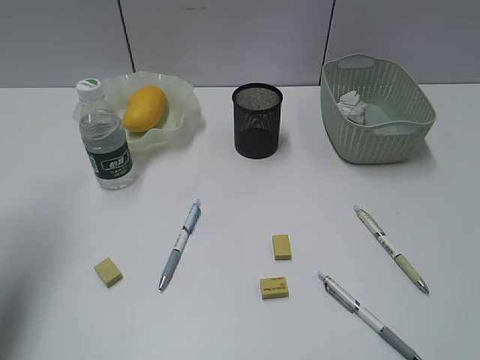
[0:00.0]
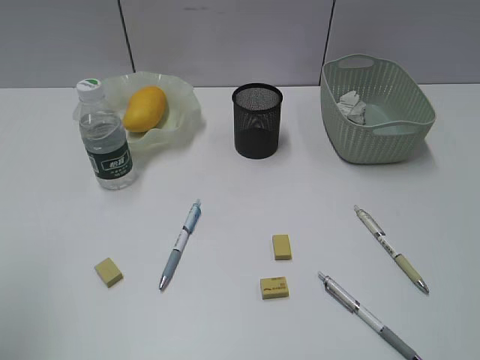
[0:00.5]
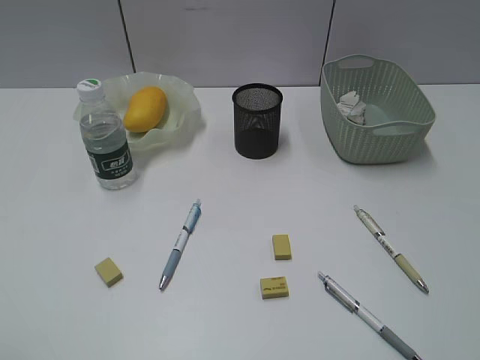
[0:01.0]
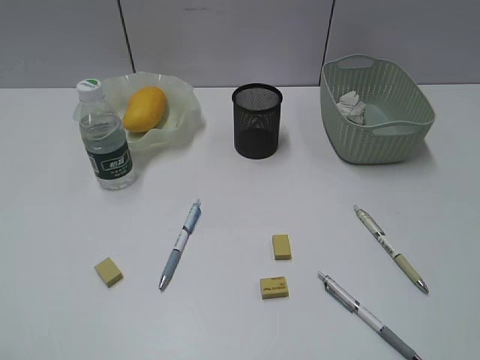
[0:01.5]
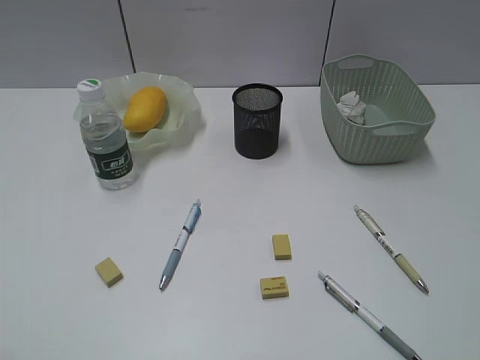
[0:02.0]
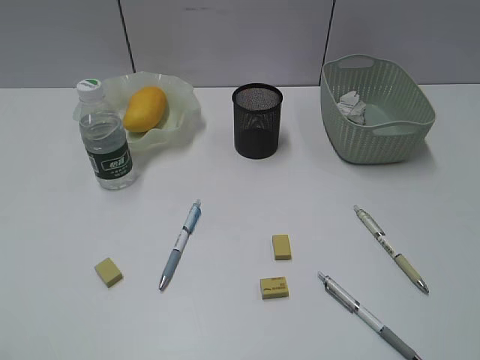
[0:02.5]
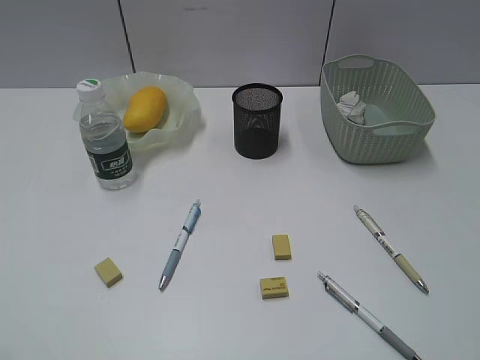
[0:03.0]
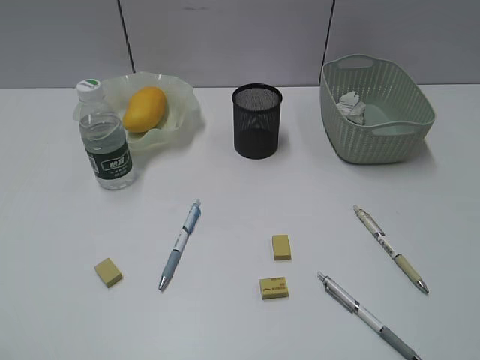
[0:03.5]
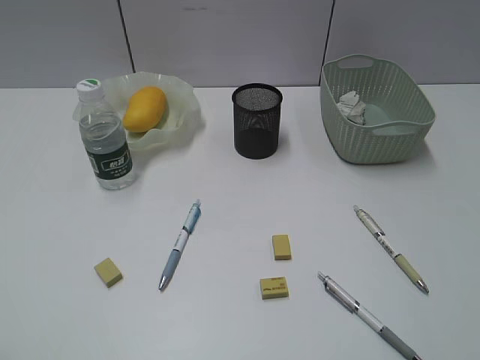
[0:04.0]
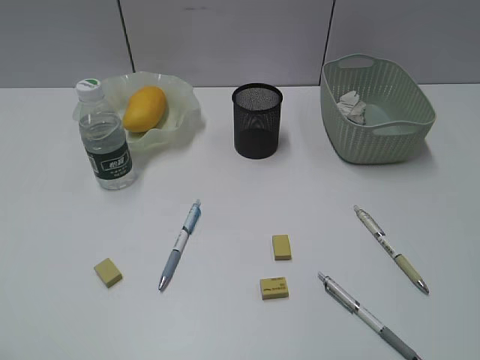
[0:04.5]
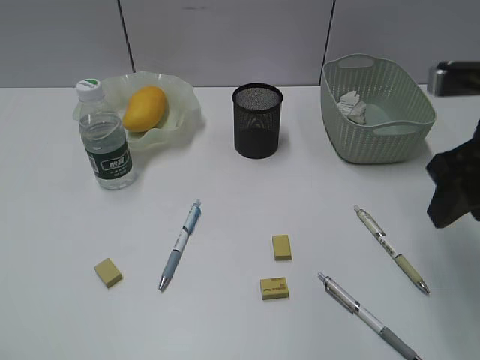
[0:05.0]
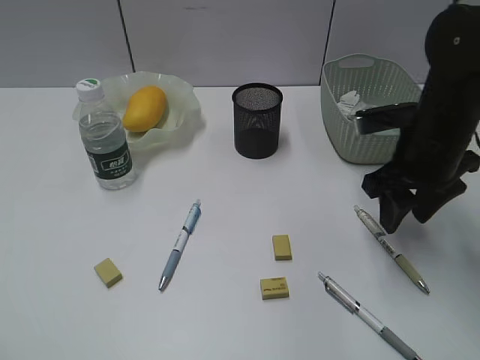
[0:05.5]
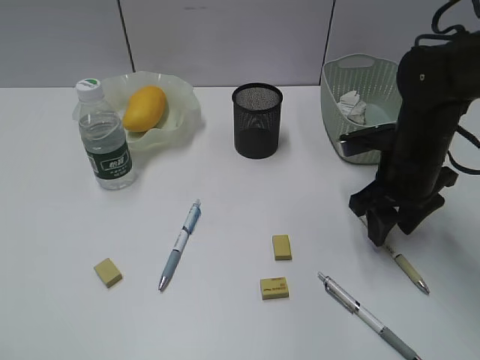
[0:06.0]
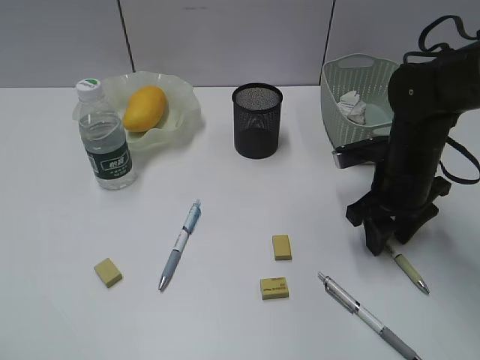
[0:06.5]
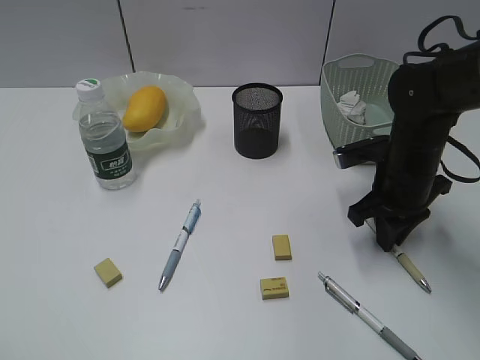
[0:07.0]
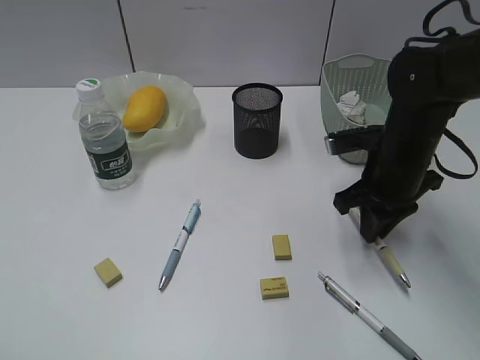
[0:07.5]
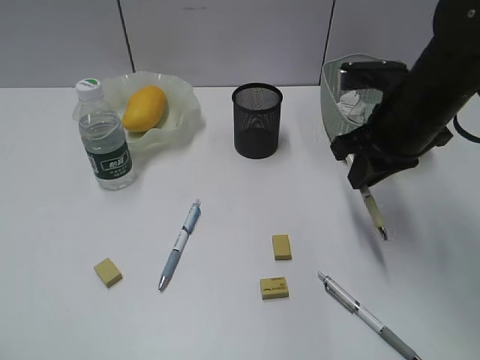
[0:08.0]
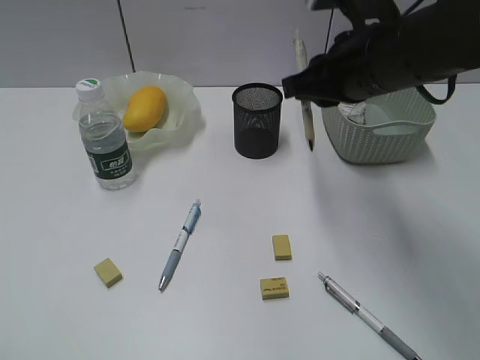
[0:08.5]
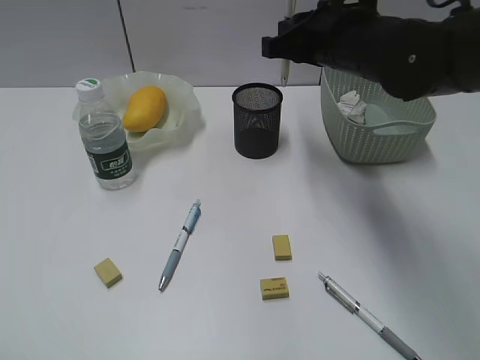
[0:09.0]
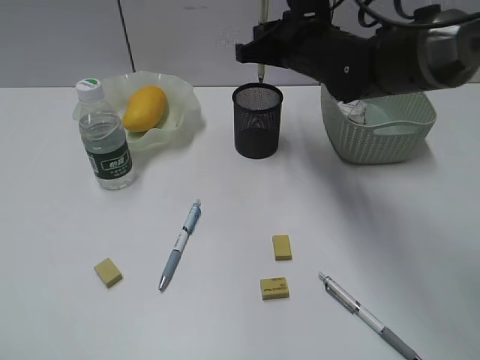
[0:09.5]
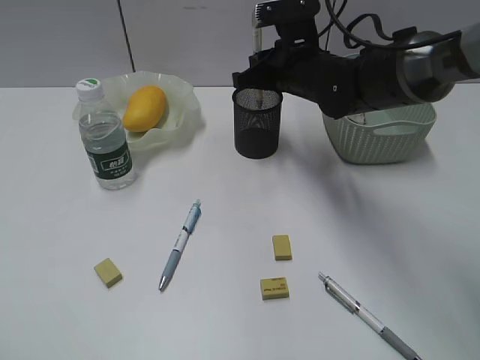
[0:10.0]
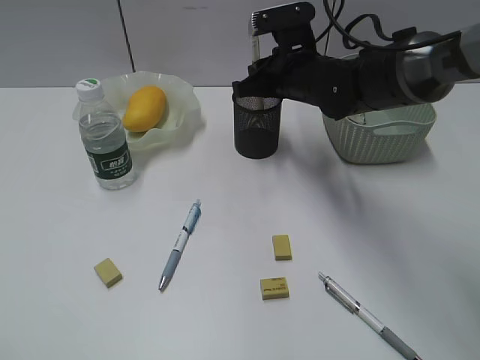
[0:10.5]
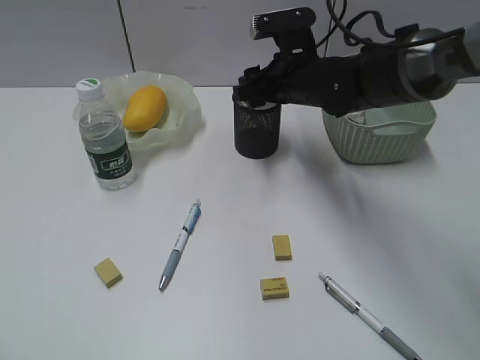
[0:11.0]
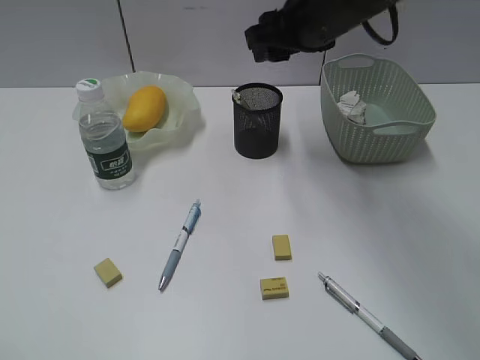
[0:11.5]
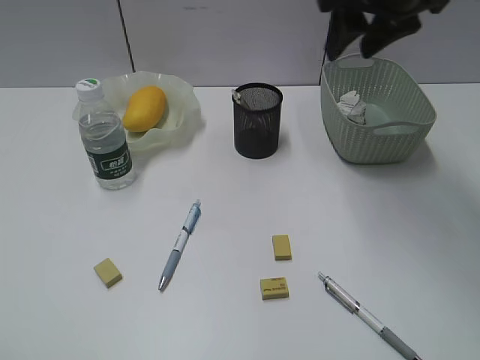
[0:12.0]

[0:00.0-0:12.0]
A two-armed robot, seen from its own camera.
Step, 0:00.0 to 0:07.0: Grasp the yellow pen with right gripper.
Step, 0:07.5 to 0:11.0: Place the yellow pen in pen holder with right gripper.
0:00.0 to 0:02.0: The left gripper shifts roughly 25 cm backward.
0:04.0 to 0:06.0: The right gripper is displaced forward and downward by some 35 cm.
0:06.0 to 0:08.0: The right gripper travels upward by about 5 cm, and closes.
0:08.0 to 0:10.0: The right gripper travels forward and to the left by some 15 cm.
0:10.0 to 0:12.0: The right gripper is displaced upward and to the right by approximately 15 cm, and opens.

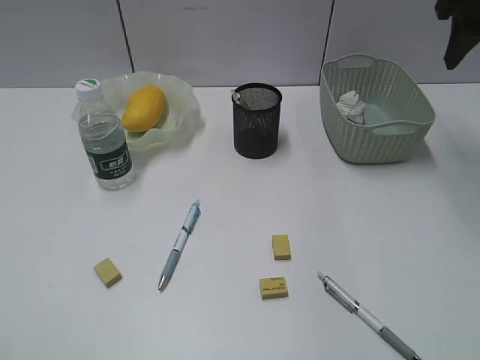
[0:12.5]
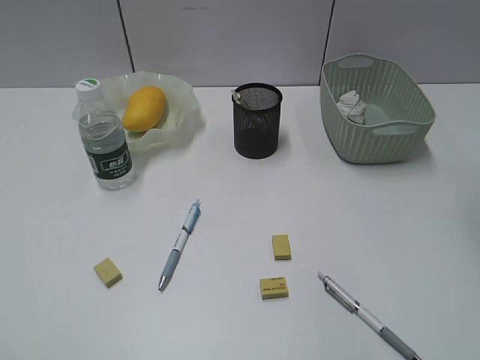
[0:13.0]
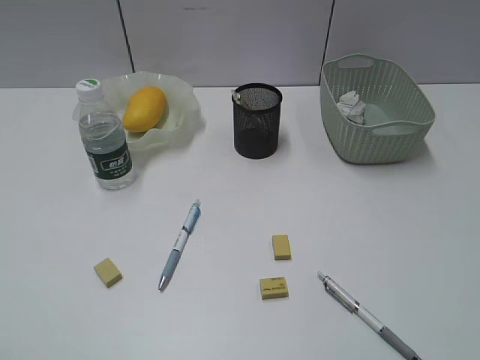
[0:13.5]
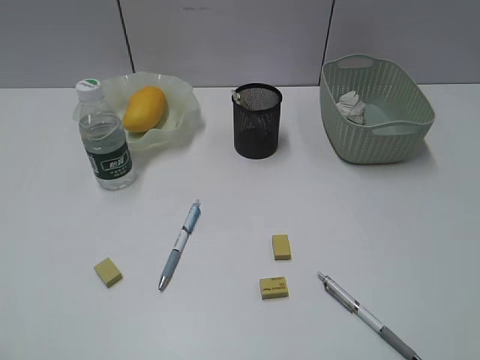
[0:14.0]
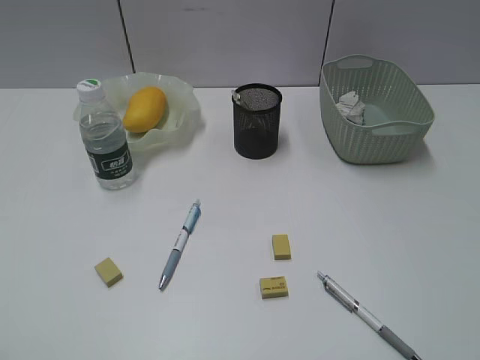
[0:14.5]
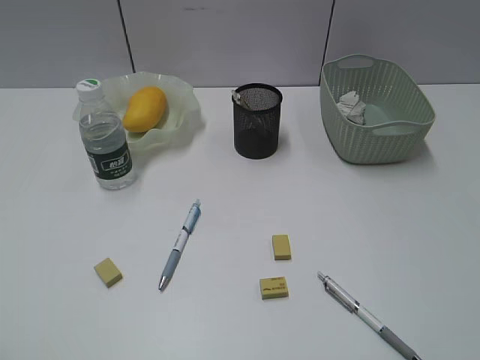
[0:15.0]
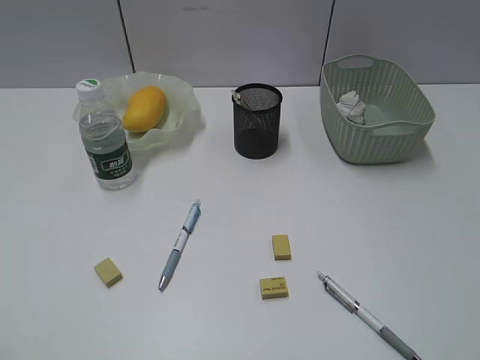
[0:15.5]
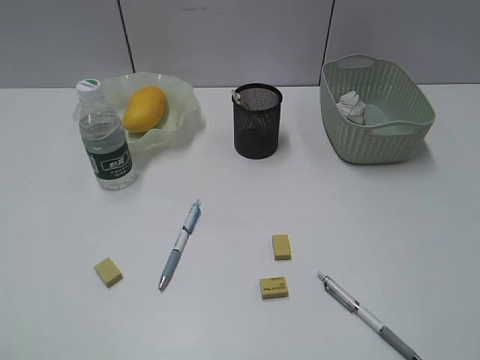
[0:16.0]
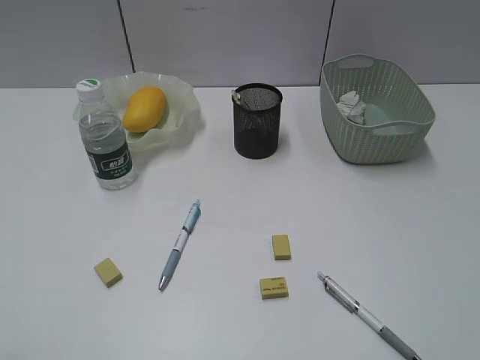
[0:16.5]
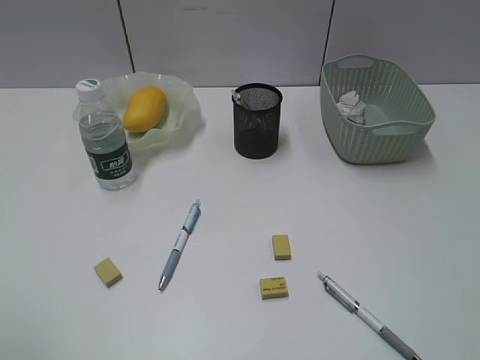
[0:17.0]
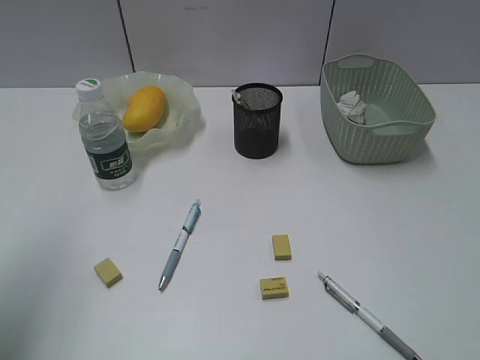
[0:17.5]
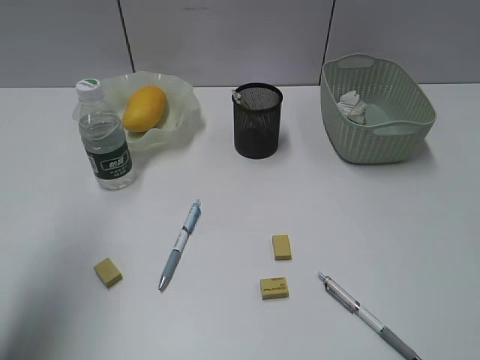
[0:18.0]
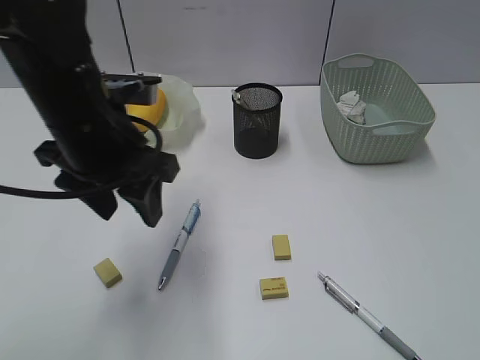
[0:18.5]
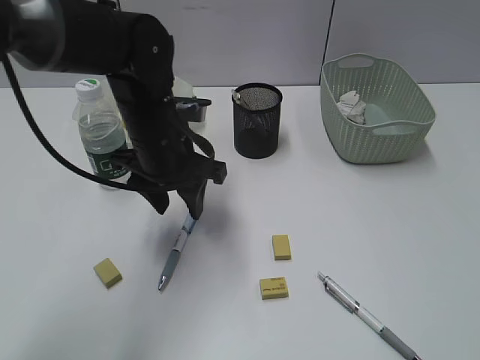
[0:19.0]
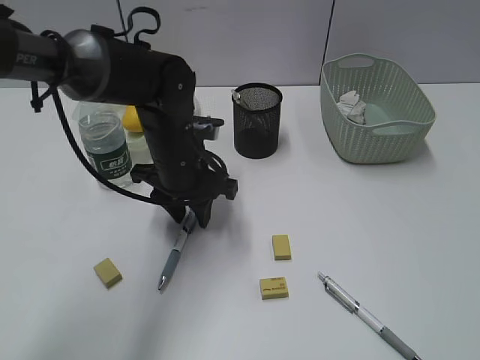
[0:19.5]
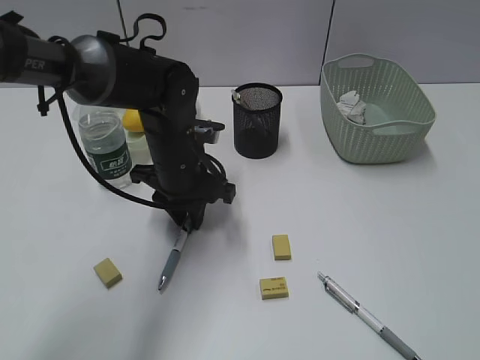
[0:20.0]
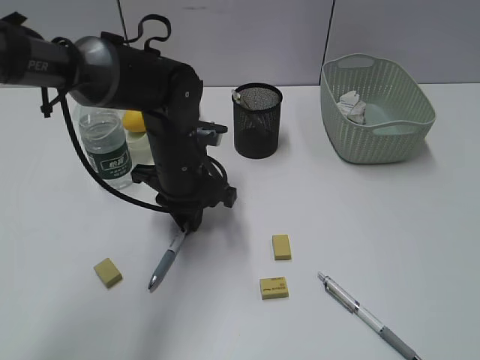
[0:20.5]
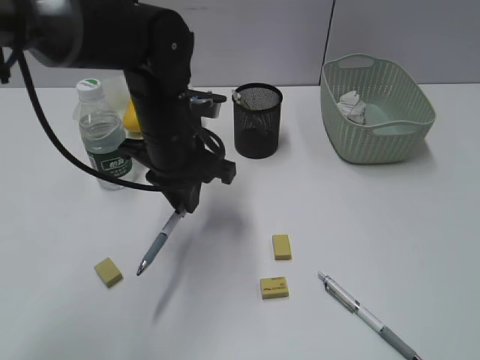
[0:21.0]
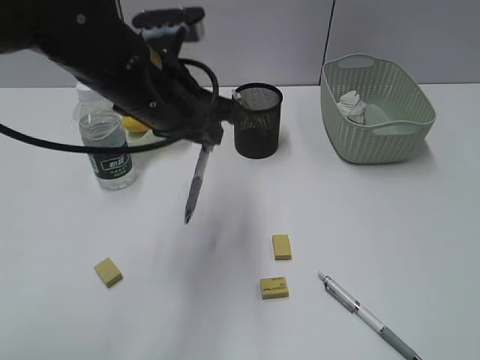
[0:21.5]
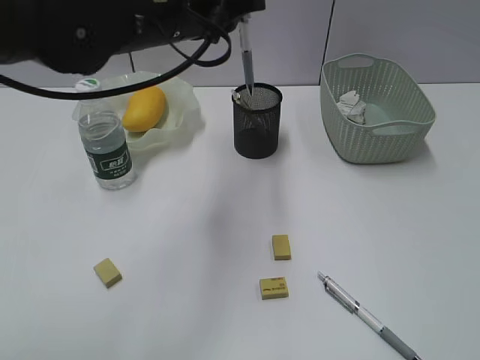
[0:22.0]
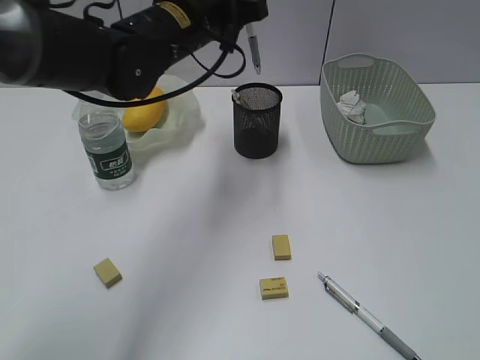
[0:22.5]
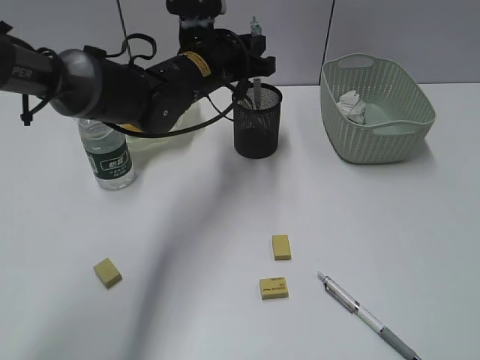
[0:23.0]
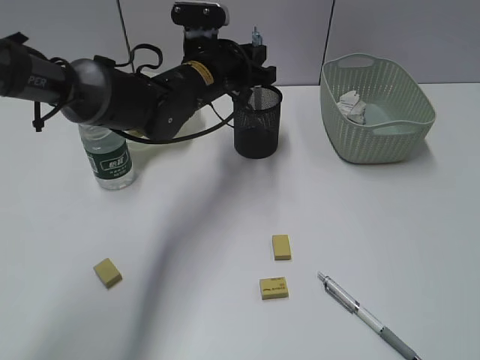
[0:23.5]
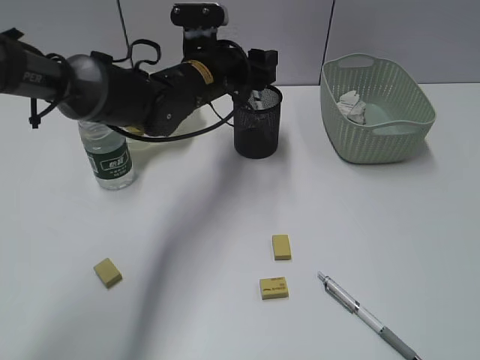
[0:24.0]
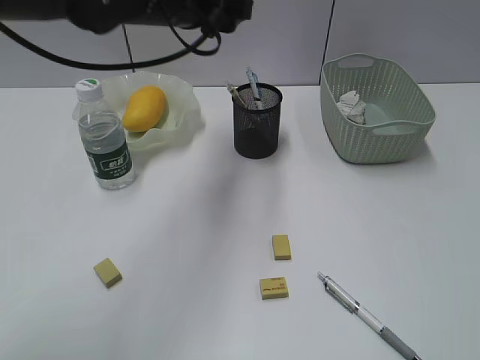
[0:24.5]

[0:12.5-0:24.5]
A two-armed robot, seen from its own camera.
Step, 0:12.5 to 0:20.0: Grasp the blue pen with left gripper.
Step, 0:20.5 to 0:23.5: Place the blue pen in pen holder with left gripper.
0:12.5 to 0:14.5: The right gripper is displaced backward by about 40 cm.
0:16.5 to 0:18.5: The left gripper moves forward and to the right, some 35 cm.
0:18.5 to 0:20.5: The left gripper heads downward, forward and to the right, covering approximately 15 cm, and closes.
0:20.5 to 0:22.5: The left gripper heads upward, covering approximately 15 cm.
0:22.5 to 0:24.5: The left gripper goes downward and returns, approximately 10 cm each way, and opens up.

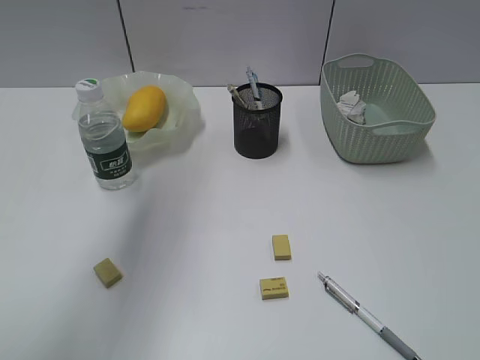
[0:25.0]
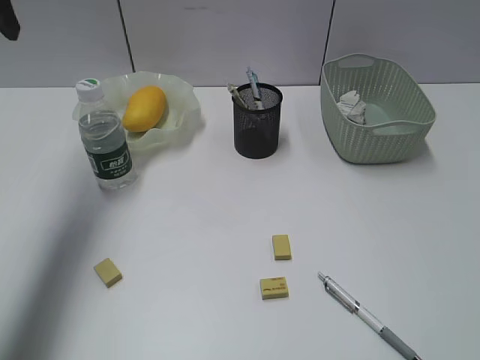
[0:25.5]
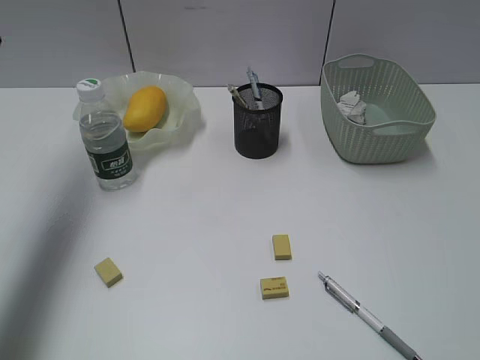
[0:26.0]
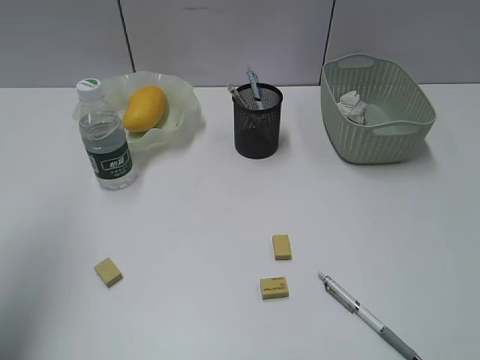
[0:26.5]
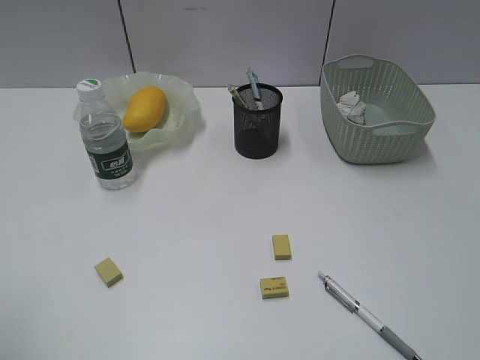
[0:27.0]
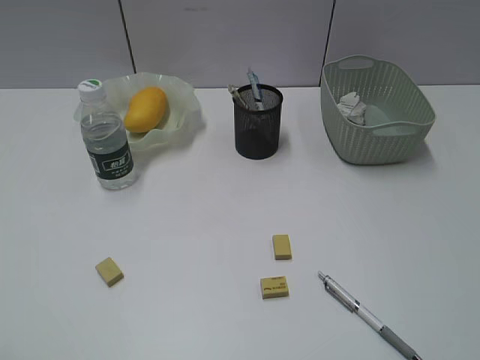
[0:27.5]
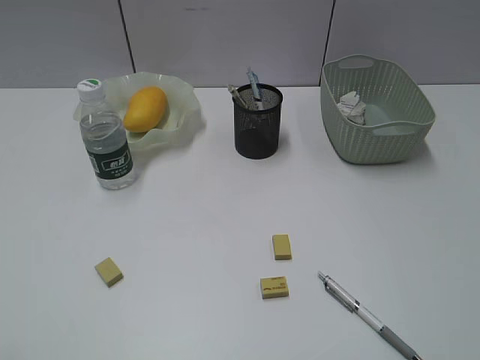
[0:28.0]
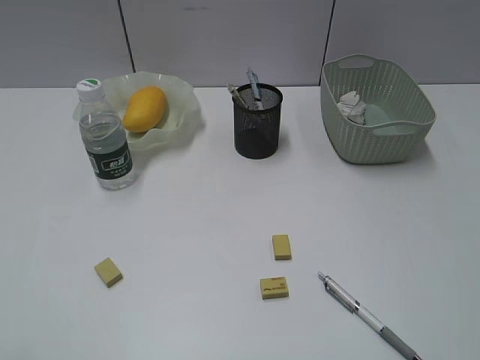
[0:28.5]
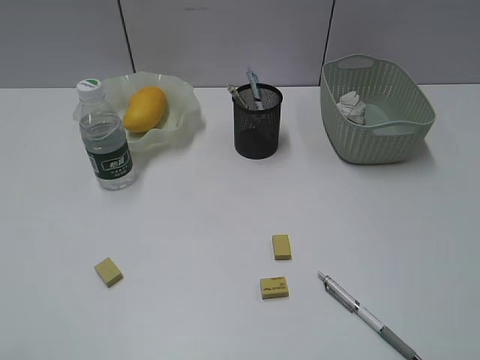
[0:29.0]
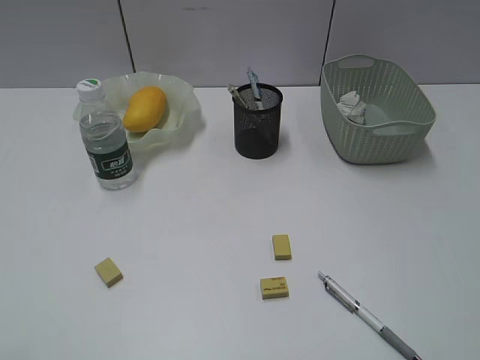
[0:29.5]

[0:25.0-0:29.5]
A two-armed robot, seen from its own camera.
0:25.0 to 0:27.0: The left gripper shifts approximately 30 cm backward and to the left.